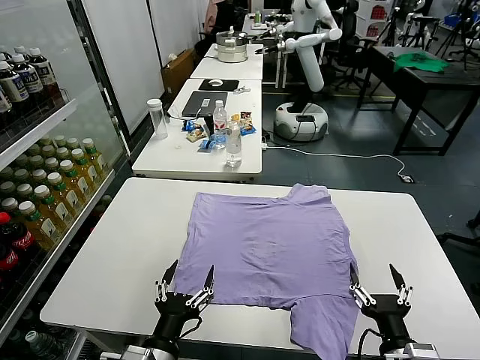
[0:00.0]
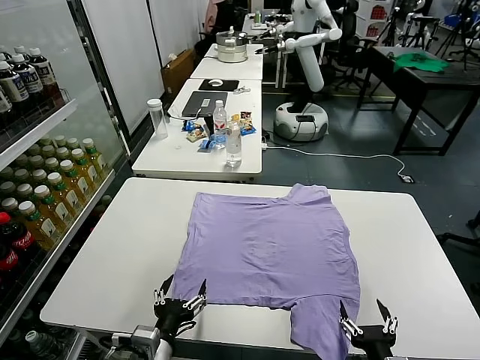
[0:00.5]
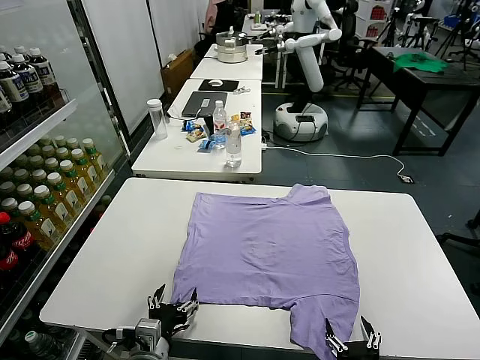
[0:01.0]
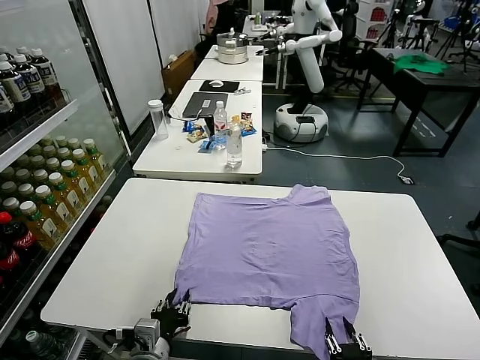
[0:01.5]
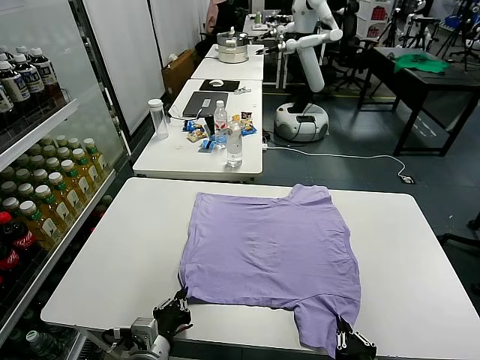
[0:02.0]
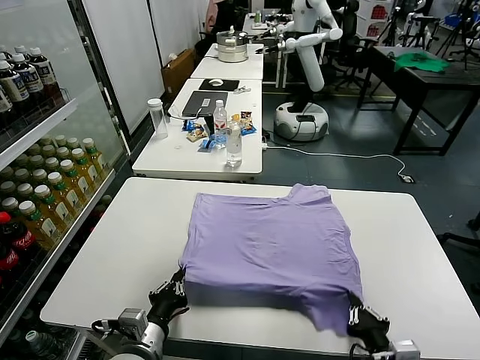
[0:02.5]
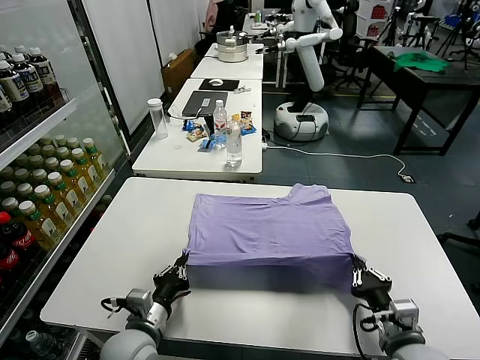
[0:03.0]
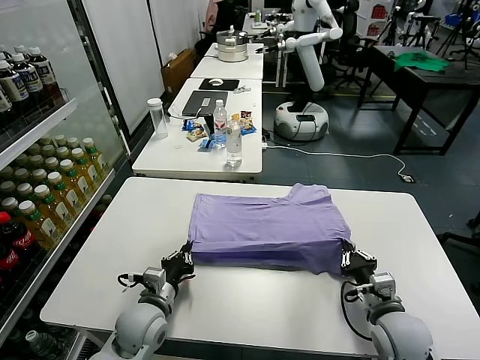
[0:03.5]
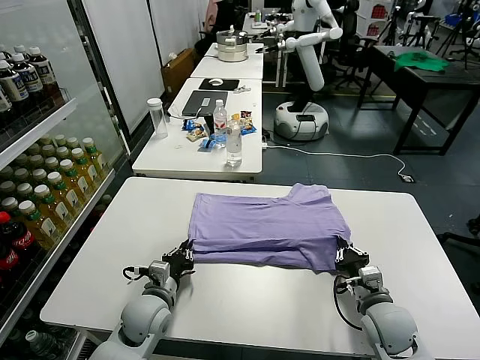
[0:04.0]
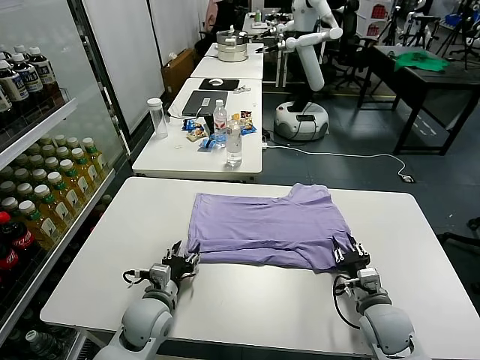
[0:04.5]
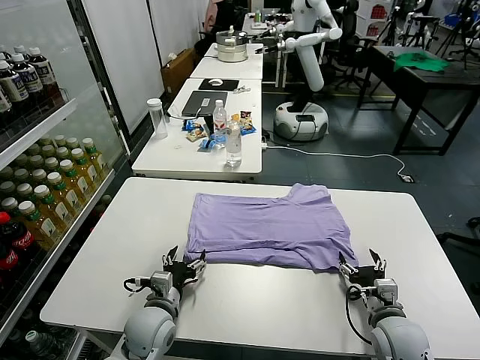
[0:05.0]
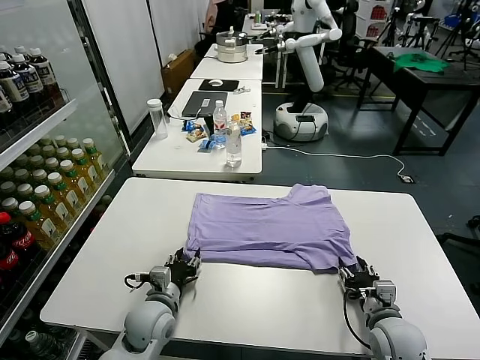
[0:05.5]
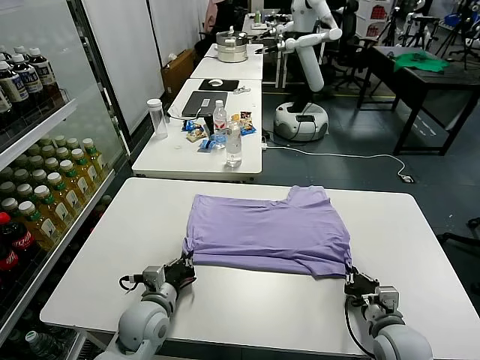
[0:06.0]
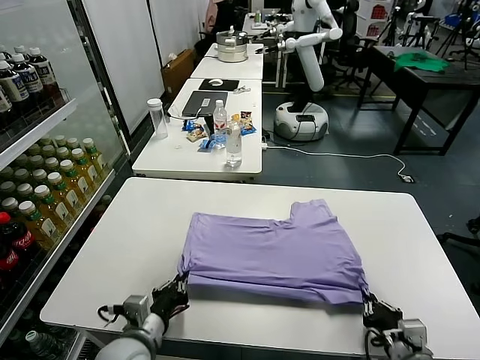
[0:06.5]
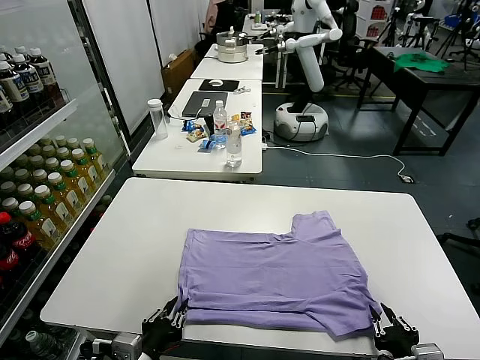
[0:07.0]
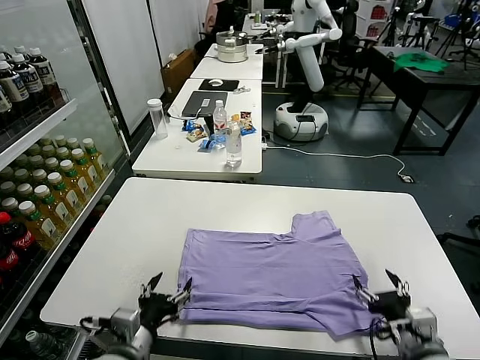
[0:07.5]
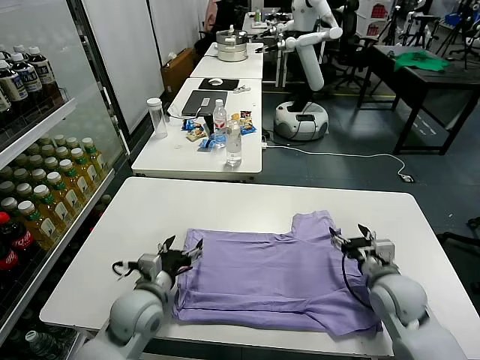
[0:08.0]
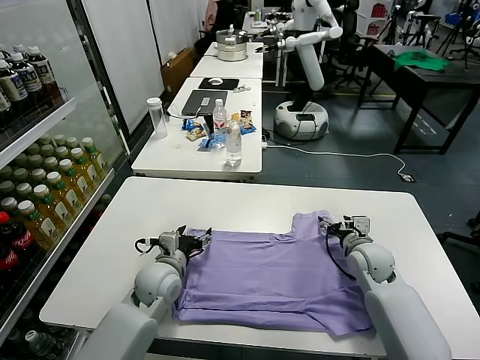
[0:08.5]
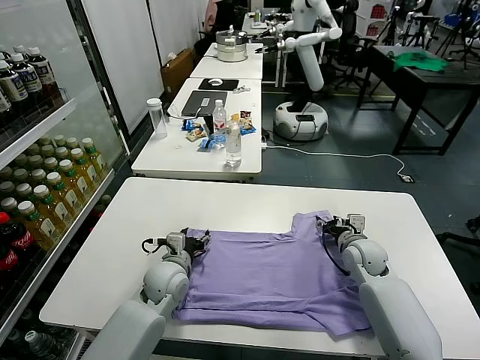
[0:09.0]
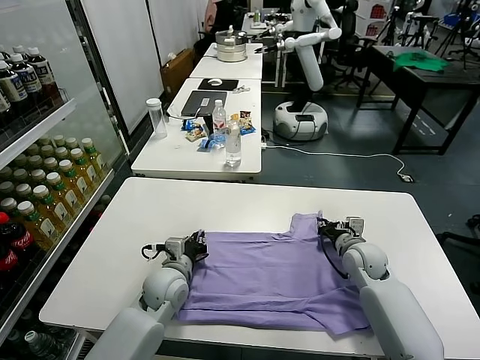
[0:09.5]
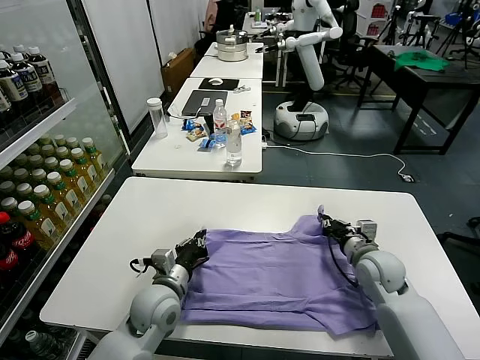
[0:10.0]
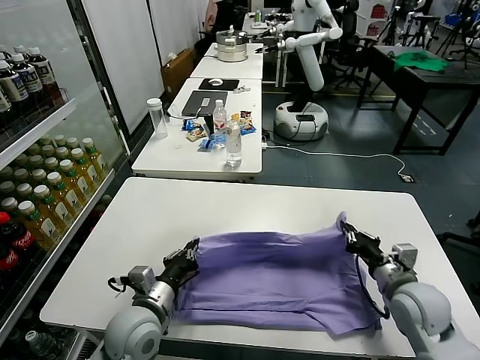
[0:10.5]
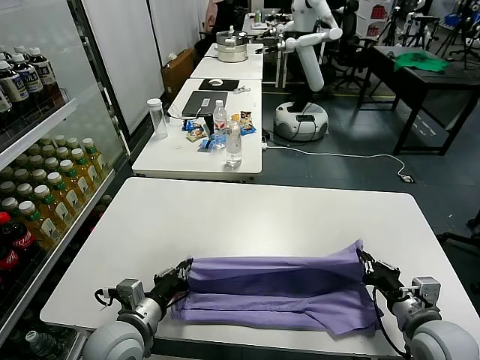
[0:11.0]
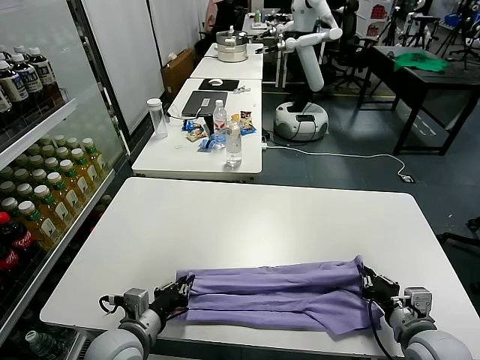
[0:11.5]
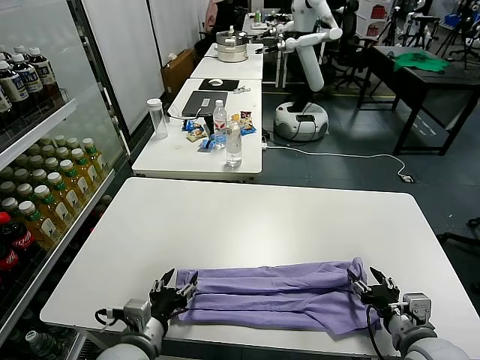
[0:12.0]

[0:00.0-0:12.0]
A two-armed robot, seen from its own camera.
Task of the whole recording: fold and organize the clothes.
Step, 0:00.0 to 0:02.0: use both grippers simultaneously to clamp the lower edge of the clothing fabric.
Step, 0:02.5 to 0:04.5: use both grippers to drag the lower edge of the fabric forward and fold it over the upper edge.
Step, 0:05.0 to 0:07.0: Drag the clothes downward with both gripper.
Step, 0:07.5 to 0:09.5: use both grippers simultaneously to clamp the upper edge of the clothing fabric.
0:02.0 to 0:04.0: Both grippers move forward, approximately 15 cm.
0:04.0 to 0:06.0: The left gripper opens and closes again. Meanwhile the right gripper goes about 5 cm backward, and opens and closes again.
0:06.0 to 0:08.0: The right gripper shifts some 15 cm forward and upward, and opens its fingers, while the left gripper goes backward and returns, some 15 cm each way, and opens.
0:08.0 to 0:10.0: The left gripper goes forward and returns, approximately 10 cm each way, and closes up; the right gripper moves approximately 10 cm forward and comes back, and closes its fingers.
0:10.0 to 0:12.0: The right gripper is displaced backward by about 20 cm, and opens up. Meanwhile the left gripper moves backward, some 10 cm, and opens.

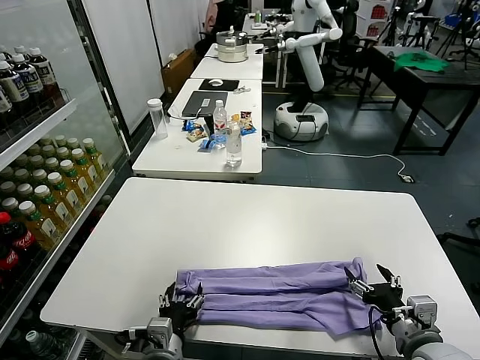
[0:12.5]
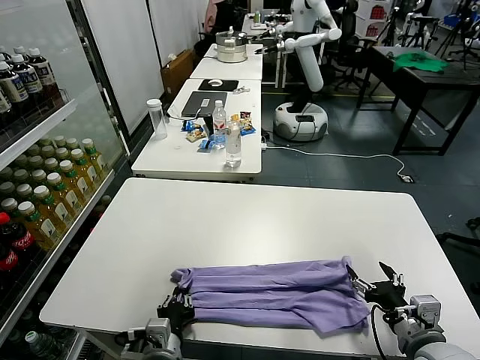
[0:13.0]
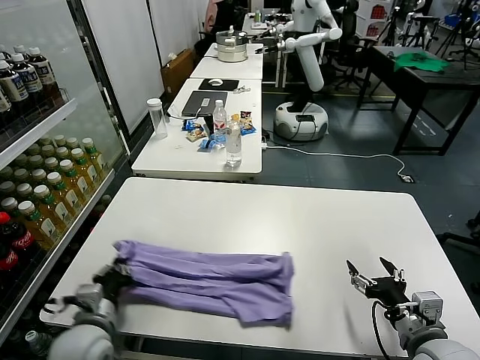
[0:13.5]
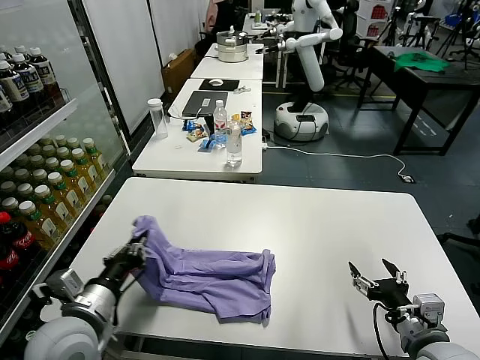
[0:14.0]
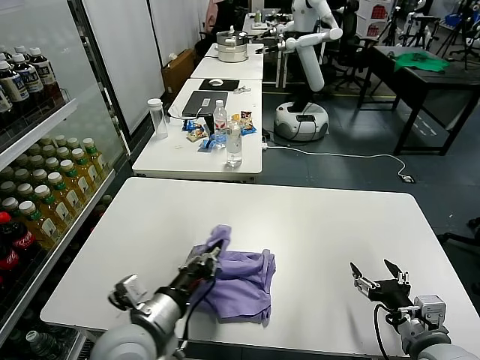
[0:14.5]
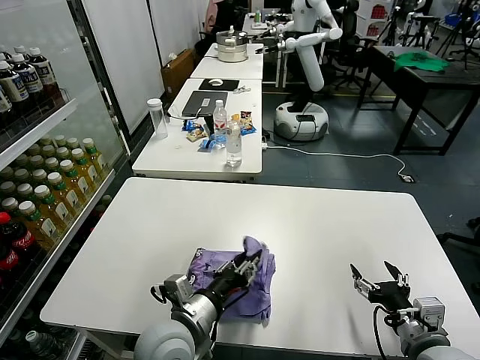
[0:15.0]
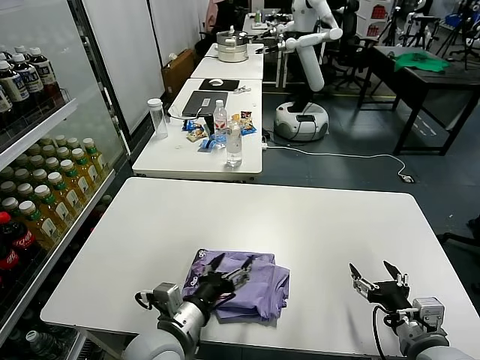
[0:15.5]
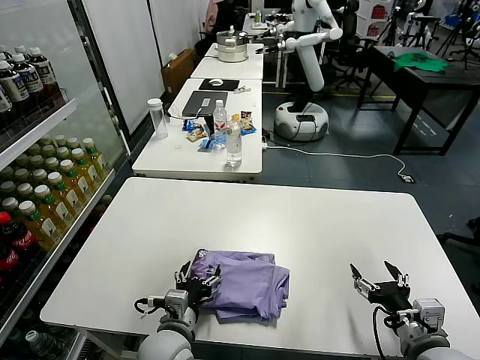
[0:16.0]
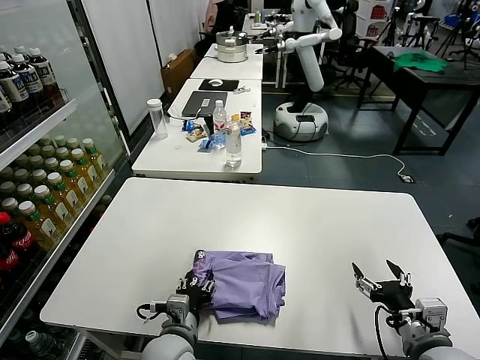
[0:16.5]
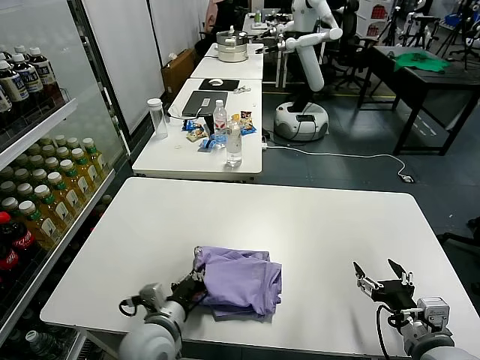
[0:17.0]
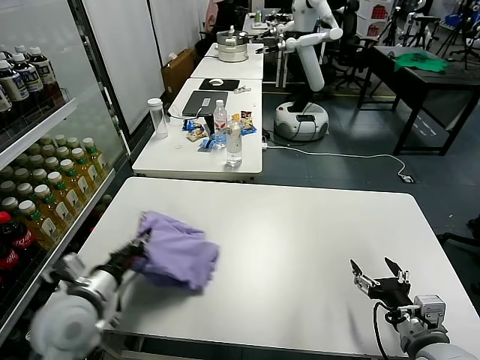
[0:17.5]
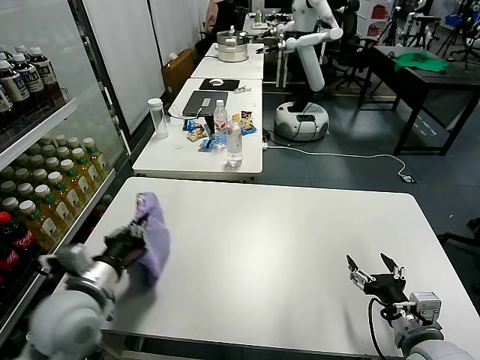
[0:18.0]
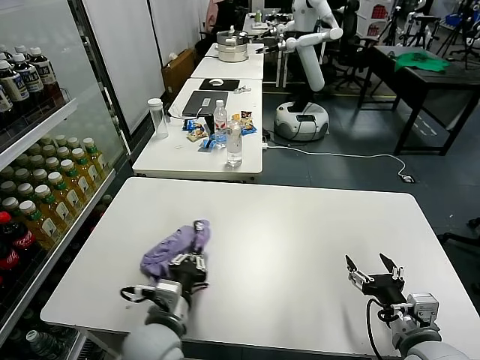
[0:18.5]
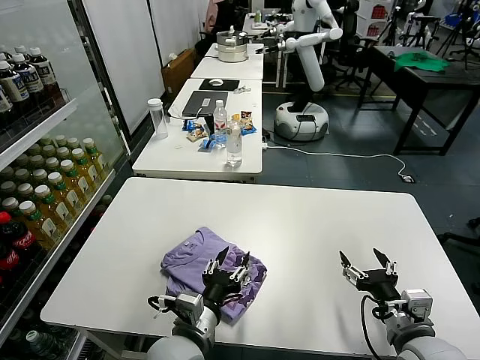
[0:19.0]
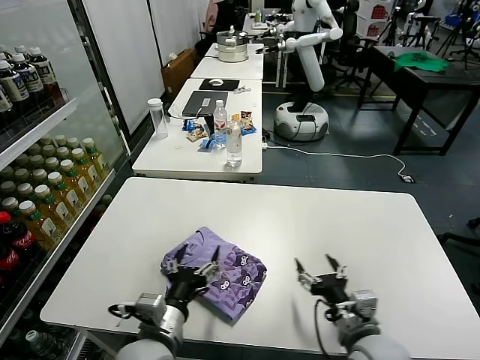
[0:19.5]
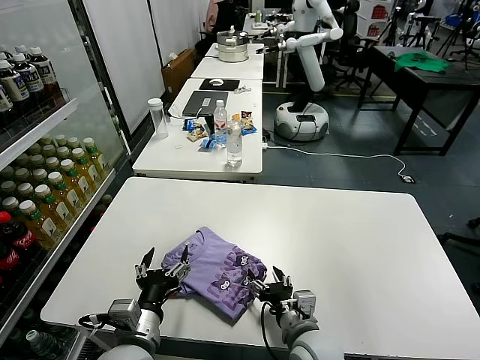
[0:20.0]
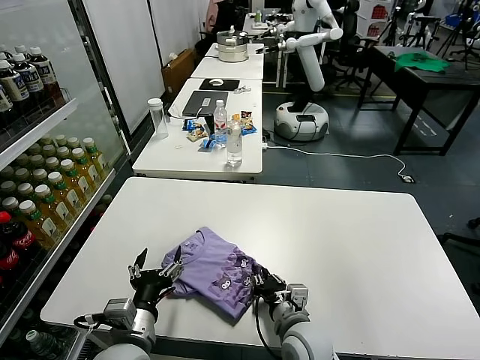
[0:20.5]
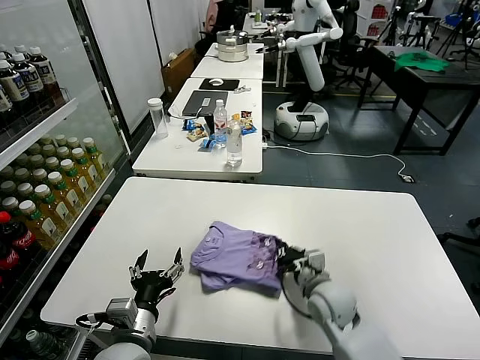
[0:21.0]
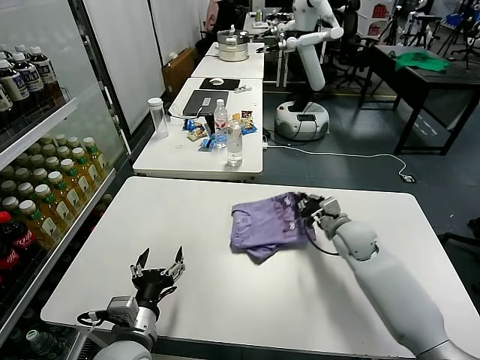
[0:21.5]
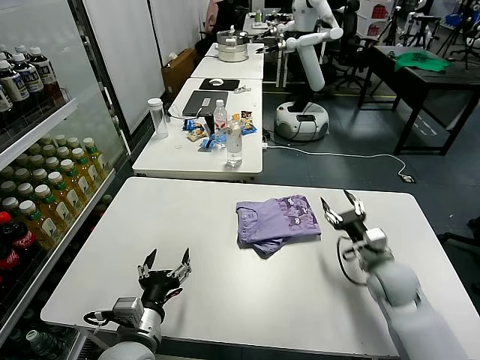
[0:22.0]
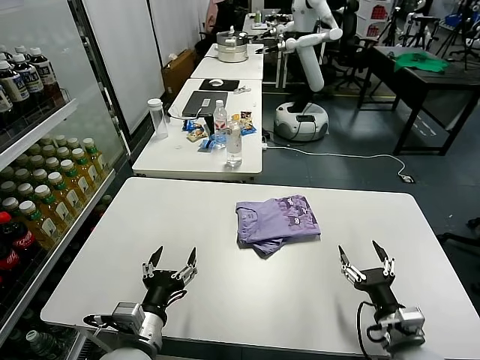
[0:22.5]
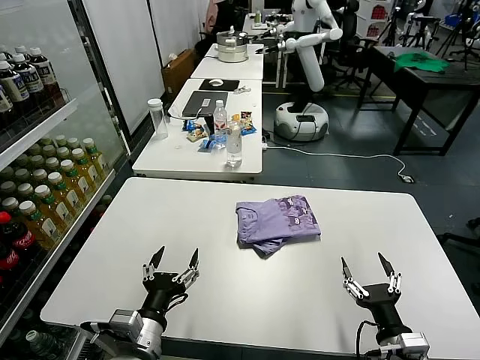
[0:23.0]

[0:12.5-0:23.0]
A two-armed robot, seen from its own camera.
Task of the whole recording: fold and organize the clothes.
Step, 0:12.5 to 0:13.0: use the left gripper to clamp the left edge of the fabric.
Step, 0:13.5 to 0:15.0: use the left gripper to drag the left edge of the fabric to the left and folds it over the right edge.
Step, 0:15.5 to 0:19.0: Flip the folded clothes over with left gripper.
Step, 0:19.5 to 0:22.0: Drag the clothes to the center of the table.
0:12.5 to 0:14.5: The left gripper shifts approximately 10 cm upward, and closes up.
0:14.5 to 0:16.5: The left gripper goes some 10 cm downward, and opens its fingers.
0:16.5 to 0:19.0: The left gripper heads upward, covering about 5 cm, goes to the left and returns, approximately 15 cm each way, and closes, then opens again.
0:19.0 to 0:21.0: The right gripper moves forward, to the left and downward, approximately 20 cm, and closes its fingers, while the left gripper moves to the left, about 10 cm, and opens.
0:21.0 to 0:23.0: The right gripper is displaced backward and to the right by roughly 20 cm, and opens.

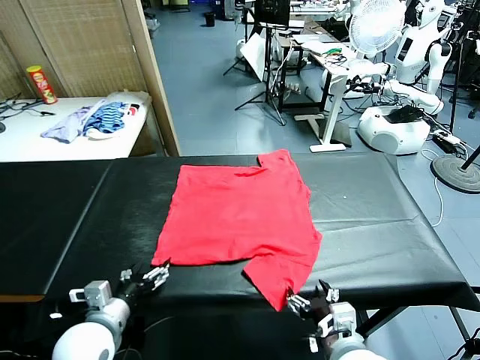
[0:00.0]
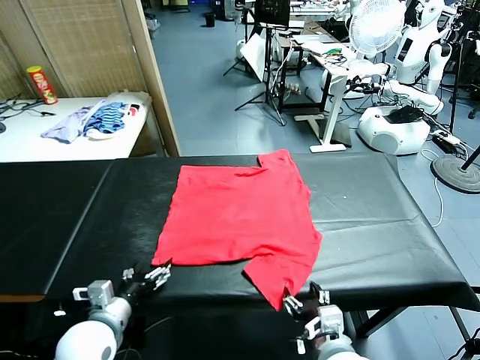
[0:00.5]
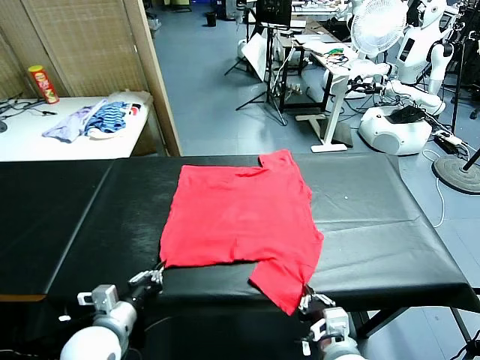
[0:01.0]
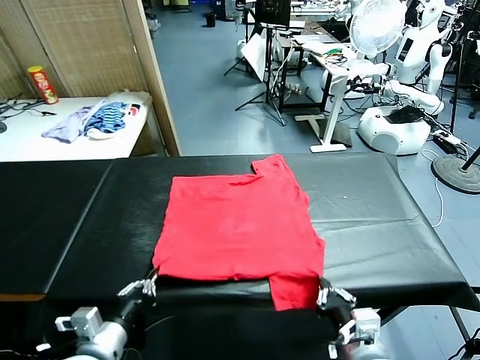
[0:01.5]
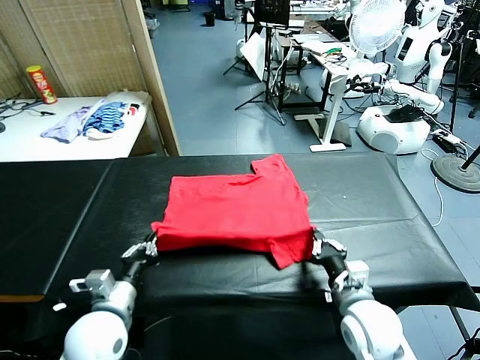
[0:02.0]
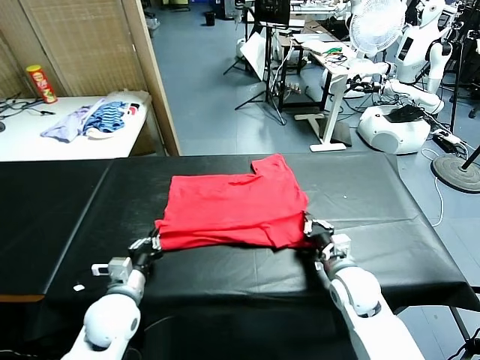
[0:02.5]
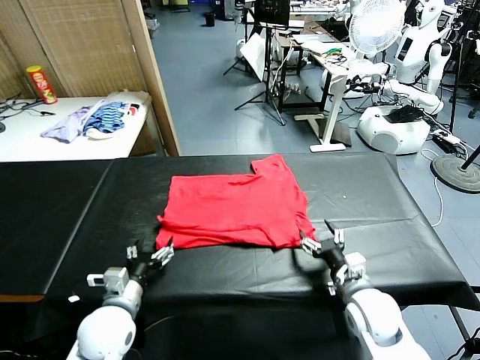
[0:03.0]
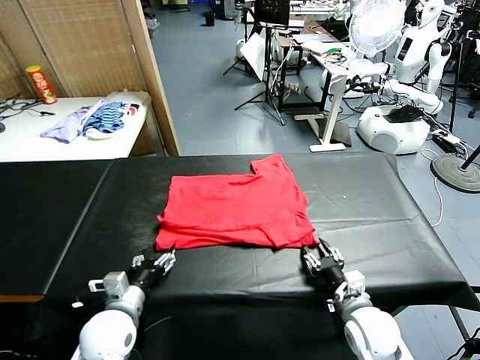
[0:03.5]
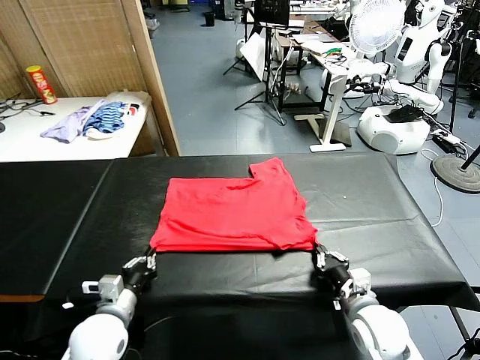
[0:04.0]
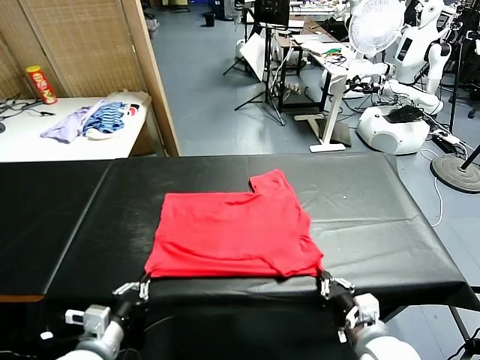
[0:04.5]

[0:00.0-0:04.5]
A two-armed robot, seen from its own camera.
Task of the whole recording: fold and organize the clothes.
Step, 0:00.0 to 0:01.0: use both grippers simultaneously to clamp the lower edge of the clothing fabric.
Step, 0:01.5 to 0:02.5: use both grippers to drag the lower edge of the fabric forward and fold it over the upper edge.
0:02.0 to 0:04.5: The right gripper moves backward, approximately 15 cm, and opens up. Meanwhile the left gripper travels backward by approximately 10 cm, and opens, then closes once more.
